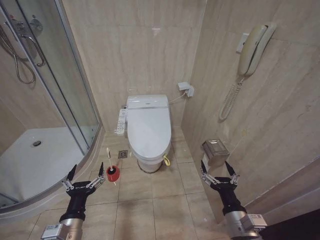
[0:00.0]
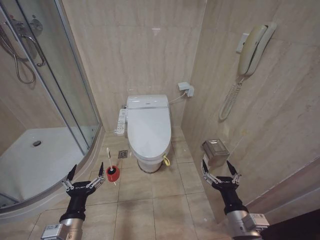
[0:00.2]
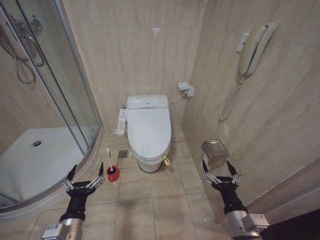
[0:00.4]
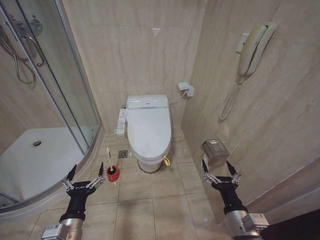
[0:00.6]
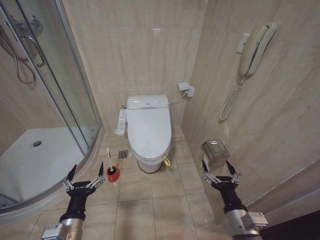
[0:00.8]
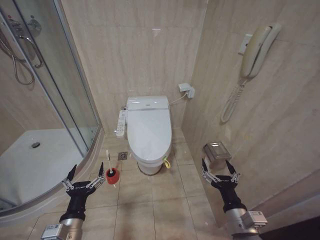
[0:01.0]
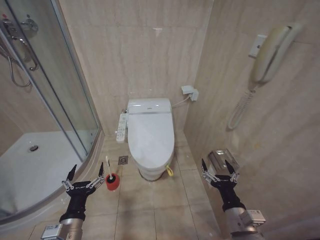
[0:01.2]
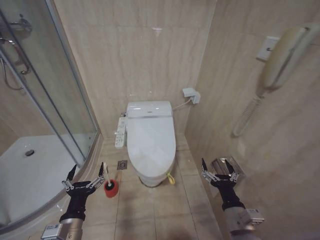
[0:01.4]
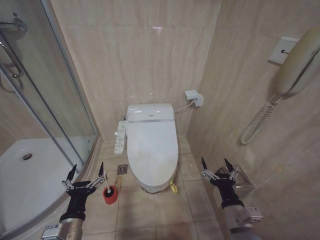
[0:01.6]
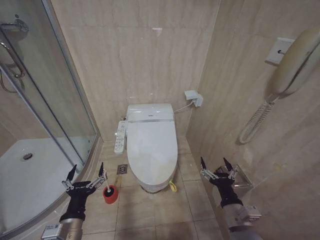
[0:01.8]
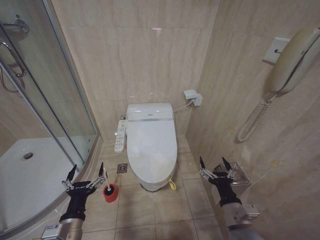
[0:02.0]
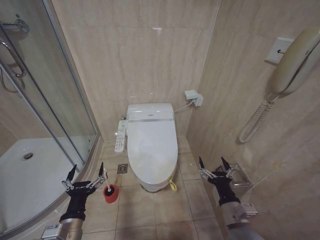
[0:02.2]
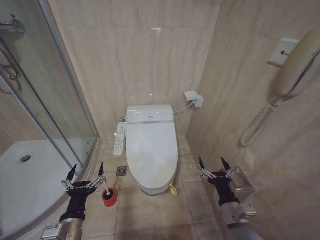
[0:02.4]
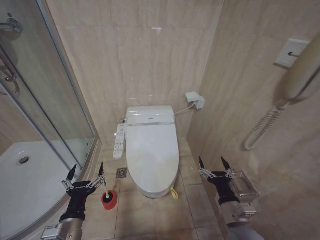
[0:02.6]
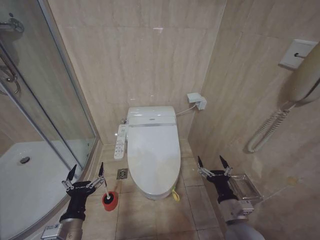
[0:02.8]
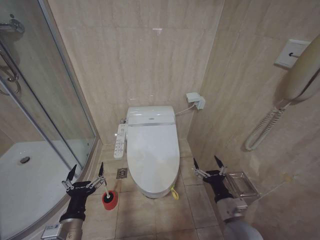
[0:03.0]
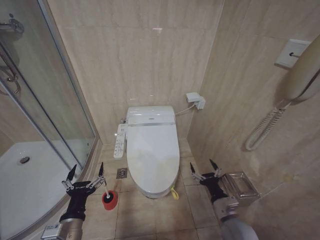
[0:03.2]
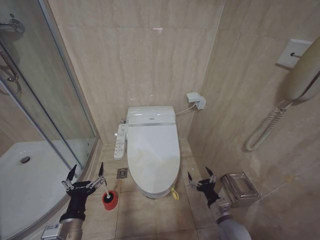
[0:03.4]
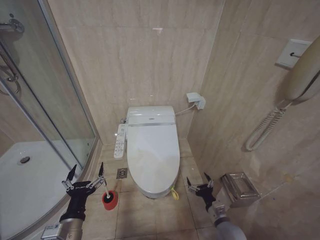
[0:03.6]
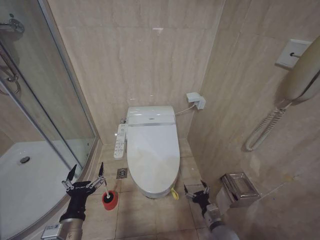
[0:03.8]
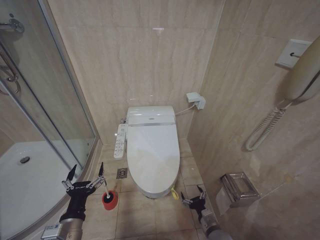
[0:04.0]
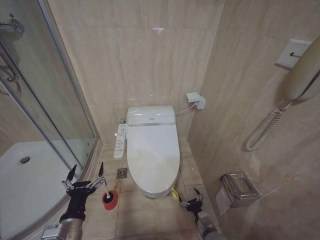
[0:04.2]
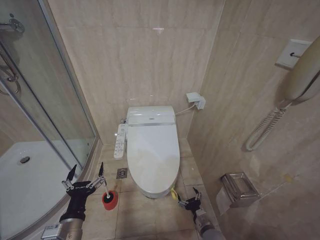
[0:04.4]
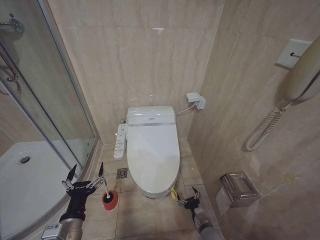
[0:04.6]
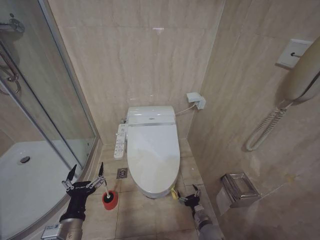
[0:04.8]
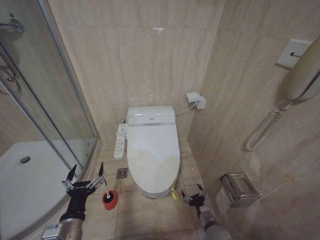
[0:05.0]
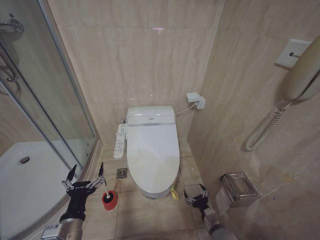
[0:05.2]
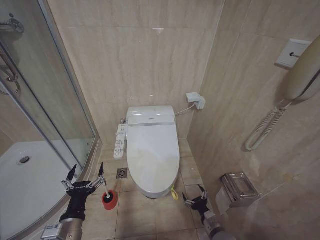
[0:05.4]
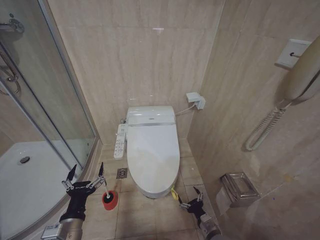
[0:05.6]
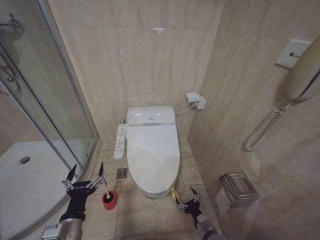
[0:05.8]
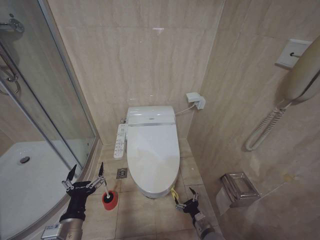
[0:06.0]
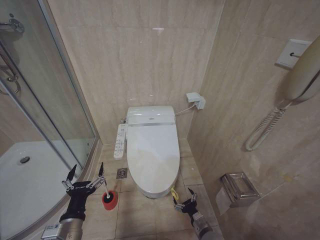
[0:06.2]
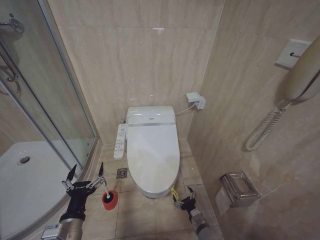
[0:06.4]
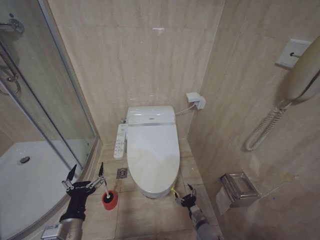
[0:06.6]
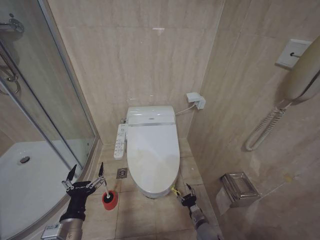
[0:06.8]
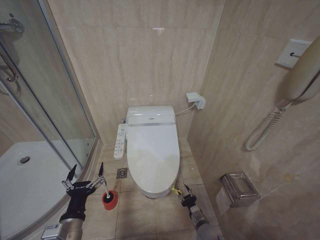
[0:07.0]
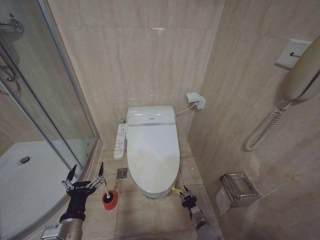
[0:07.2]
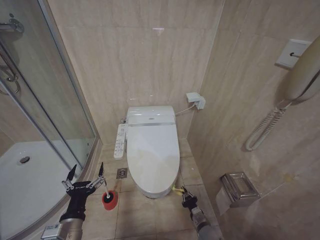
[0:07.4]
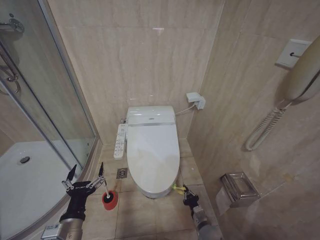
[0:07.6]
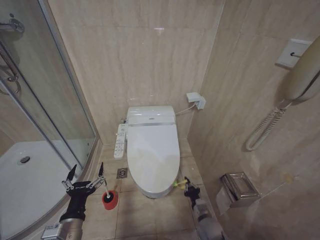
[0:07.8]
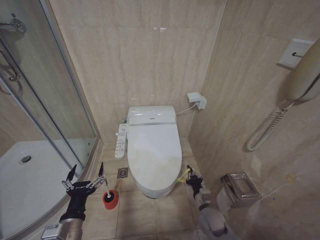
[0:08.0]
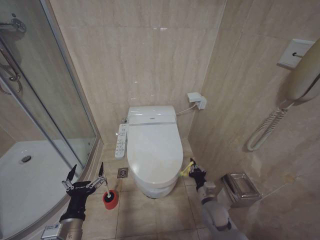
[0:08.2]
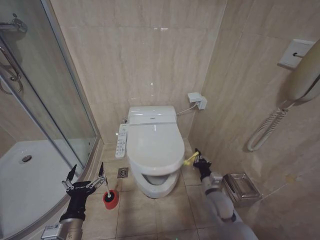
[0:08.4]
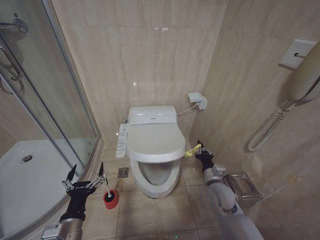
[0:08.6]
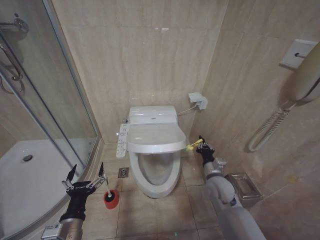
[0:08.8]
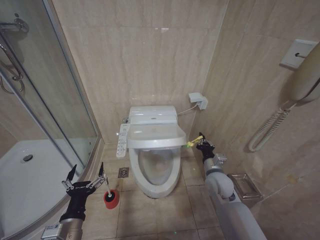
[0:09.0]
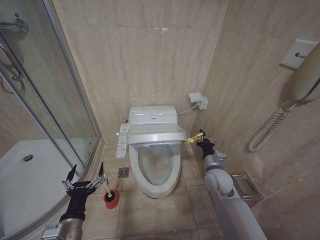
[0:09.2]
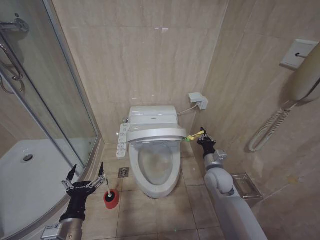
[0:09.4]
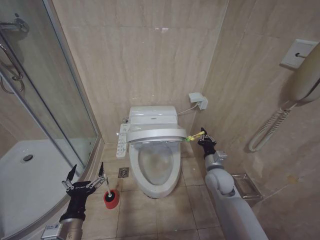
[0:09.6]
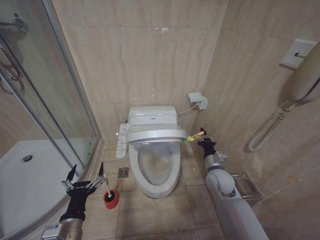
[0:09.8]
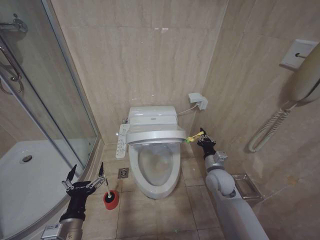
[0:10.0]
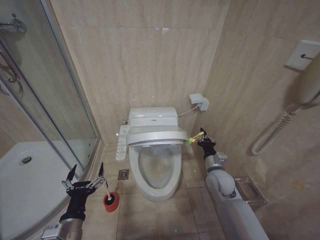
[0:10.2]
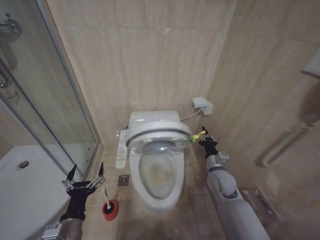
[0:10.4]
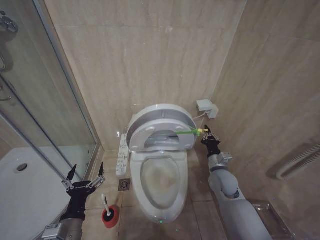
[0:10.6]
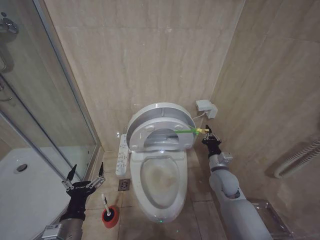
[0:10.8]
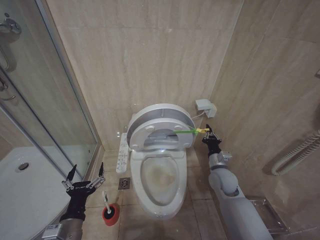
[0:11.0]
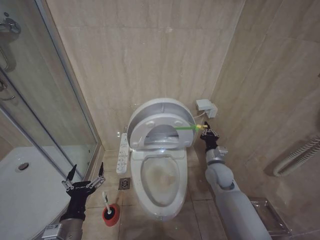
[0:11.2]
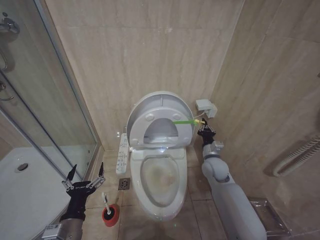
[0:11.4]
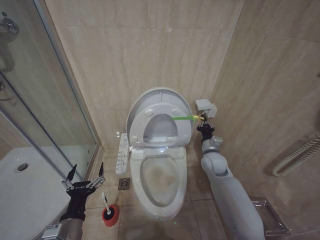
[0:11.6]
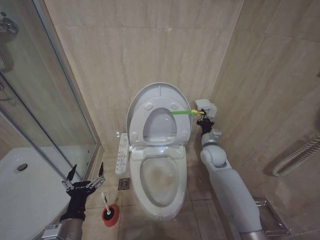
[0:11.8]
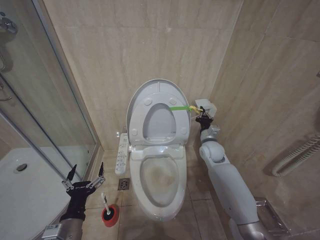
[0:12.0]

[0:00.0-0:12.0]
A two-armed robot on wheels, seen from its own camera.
Task of the whole recording: Open the toilet lid, clean the toilet bowl with a toilet brush, close the toilet lid, and flush.
0:01.6 to 0:03.0: The grippers stay close to where they were, moving slightly.
0:03.0 to 0:04.4: The right gripper moves downward, roughly 20 cm.
0:07.6 to 0:09.0: The right gripper is displaced upward and forward by some 25 cm.
0:09.0 to 0:10.4: The grippers move only a little.
0:10.4 to 0:12.0: The right gripper heads forward and upward, covering roughly 10 cm.

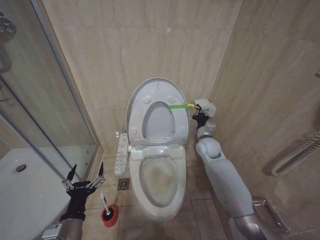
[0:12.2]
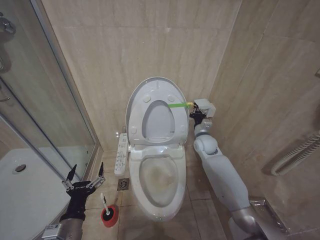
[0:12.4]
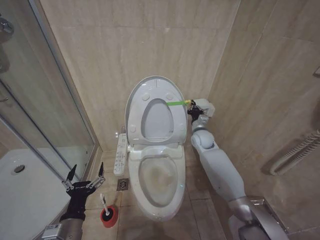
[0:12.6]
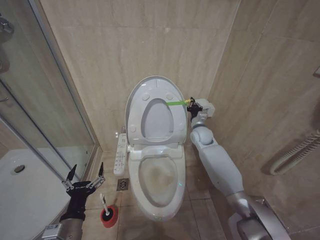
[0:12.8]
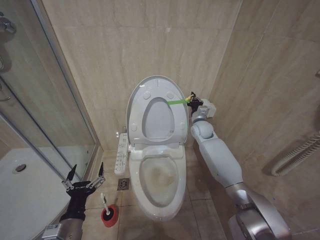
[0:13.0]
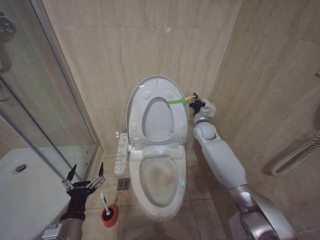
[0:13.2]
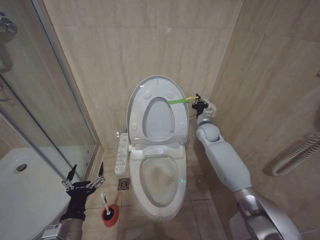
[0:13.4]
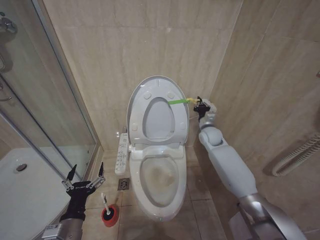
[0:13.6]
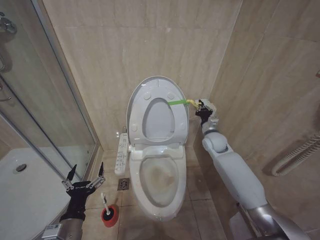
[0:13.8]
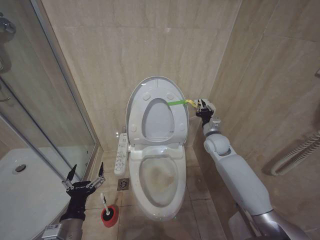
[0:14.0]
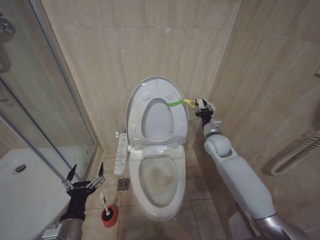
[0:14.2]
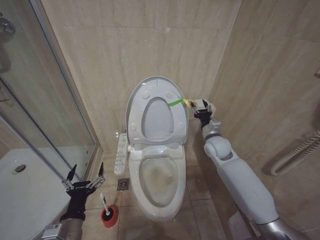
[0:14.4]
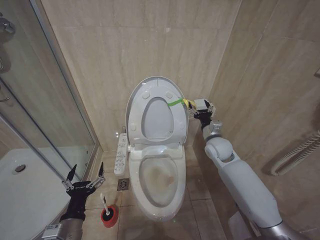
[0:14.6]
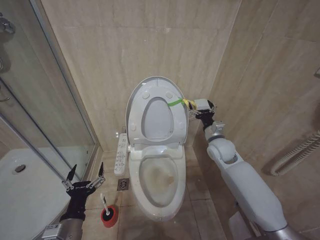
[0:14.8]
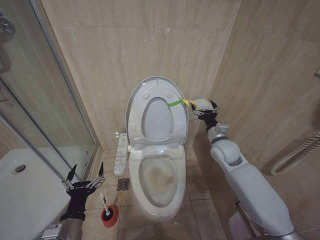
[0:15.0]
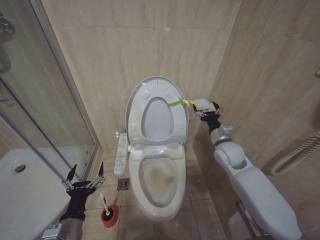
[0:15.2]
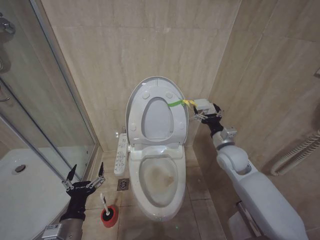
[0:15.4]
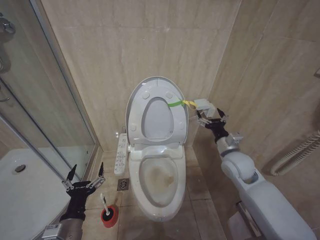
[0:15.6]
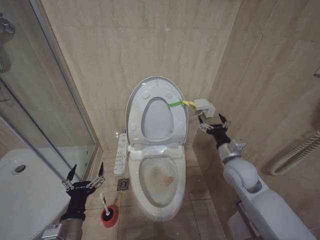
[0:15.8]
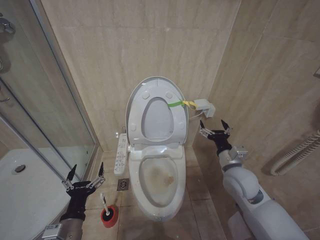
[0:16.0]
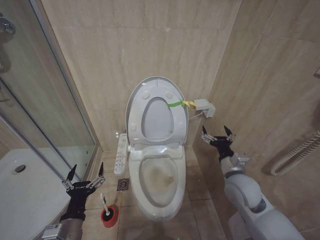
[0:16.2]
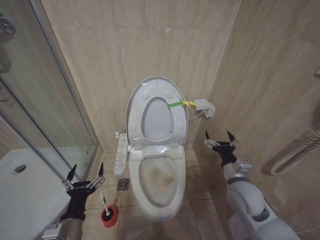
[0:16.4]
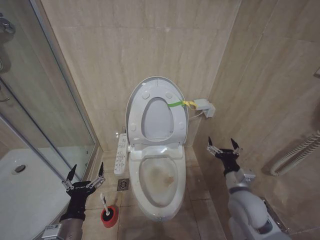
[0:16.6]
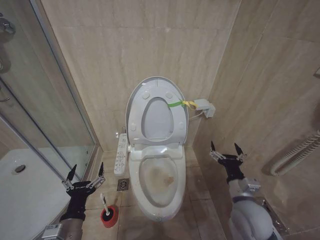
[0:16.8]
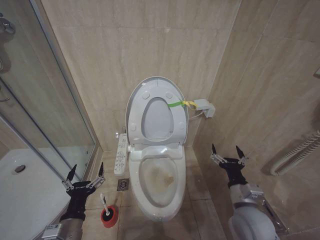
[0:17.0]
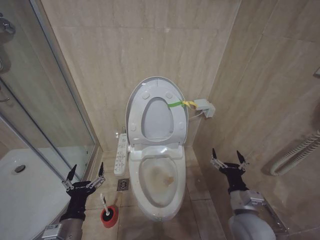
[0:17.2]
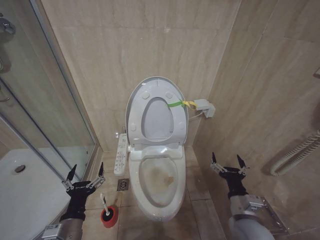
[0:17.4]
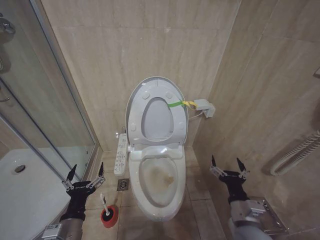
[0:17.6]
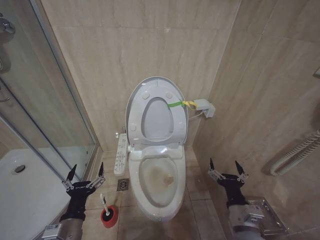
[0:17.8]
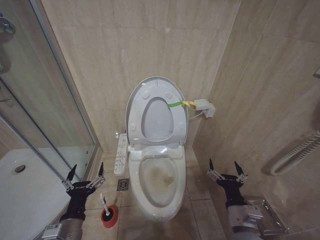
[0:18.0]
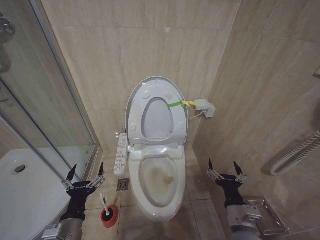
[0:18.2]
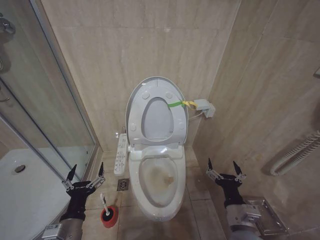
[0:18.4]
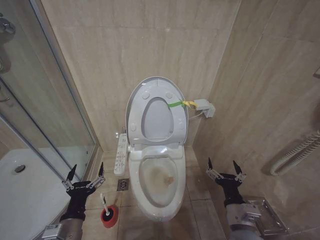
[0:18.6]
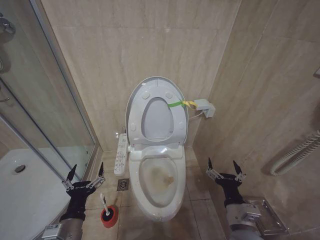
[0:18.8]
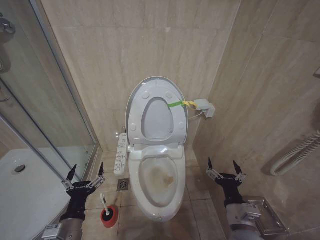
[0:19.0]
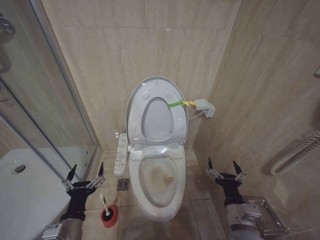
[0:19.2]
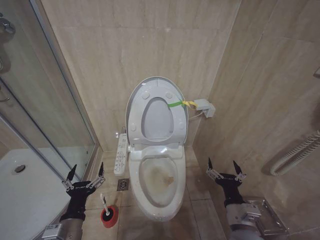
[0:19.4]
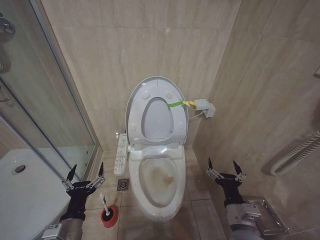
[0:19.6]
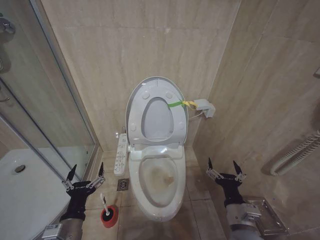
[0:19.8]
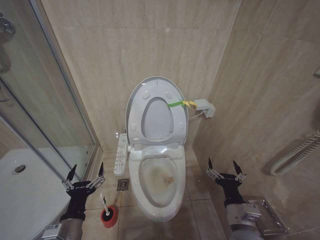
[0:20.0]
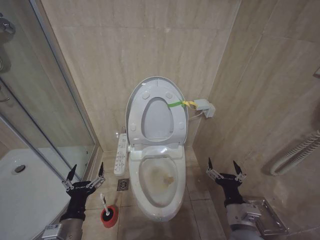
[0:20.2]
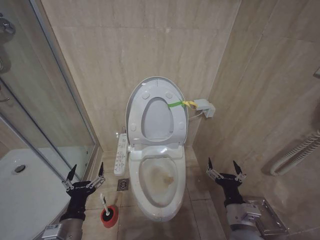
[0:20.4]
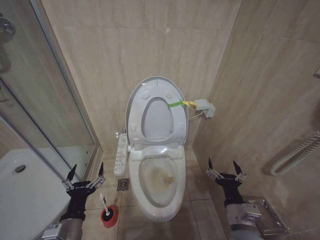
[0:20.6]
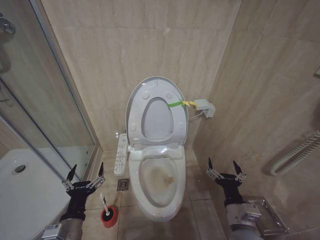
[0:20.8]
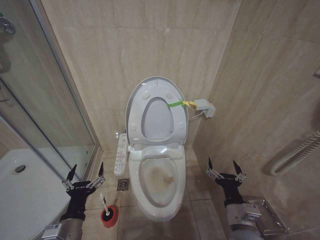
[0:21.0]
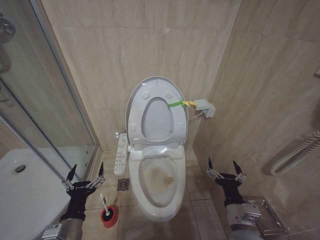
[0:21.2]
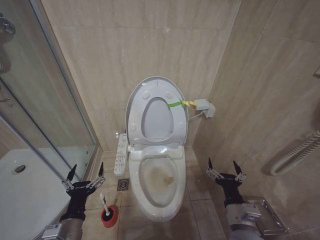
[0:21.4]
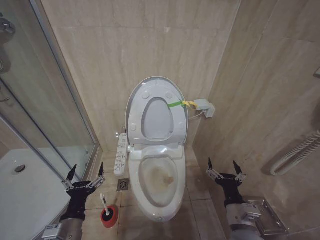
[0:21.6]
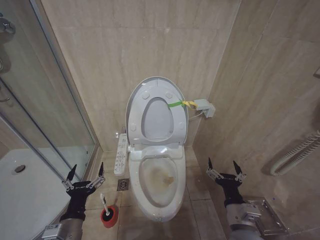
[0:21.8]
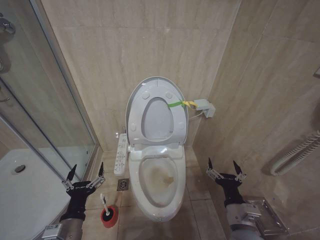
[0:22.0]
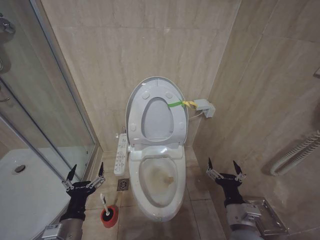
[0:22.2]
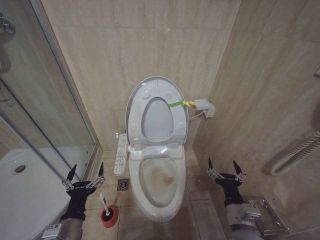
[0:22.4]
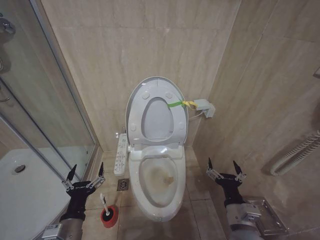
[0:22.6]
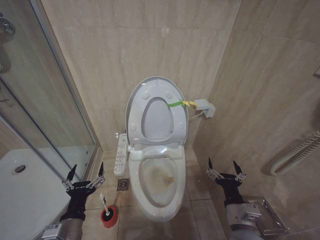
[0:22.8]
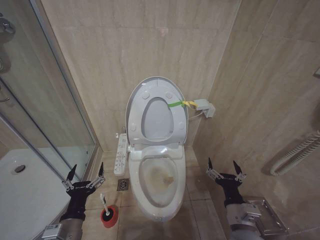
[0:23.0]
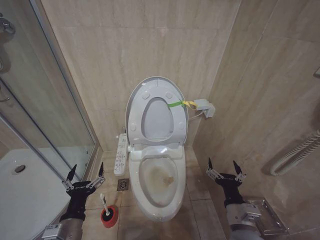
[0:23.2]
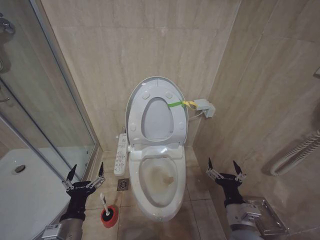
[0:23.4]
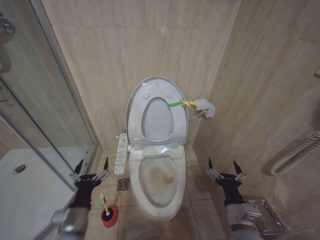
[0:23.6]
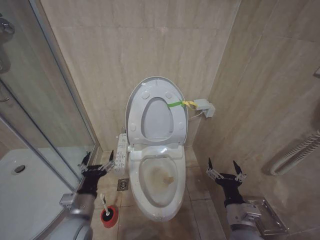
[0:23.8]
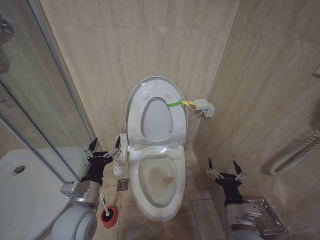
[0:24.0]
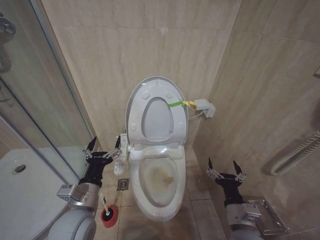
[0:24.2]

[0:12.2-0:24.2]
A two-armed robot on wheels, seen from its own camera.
Task of the whole recording: Open the toilet lid, clean the toilet bowl with a toilet brush, close the toilet lid, and flush.
0:13.8 to 0:15.2: The right gripper heads backward, covering roughly 10 cm, and opens its fingers.
0:15.2 to 0:16.6: The right gripper travels backward and downward by approximately 15 cm.
0:16.6 to 0:18.2: The right gripper heads backward, covering some 10 cm.
0:18.2 to 0:22.6: Both grippers stay about where they are.
0:22.6 to 0:24.2: The left gripper shifts some 10 cm upward and forward.
